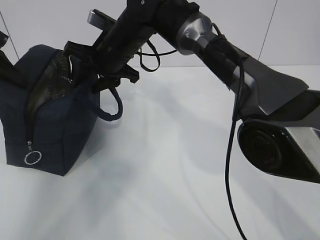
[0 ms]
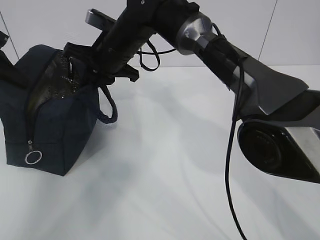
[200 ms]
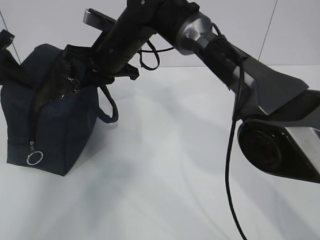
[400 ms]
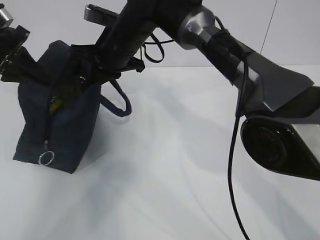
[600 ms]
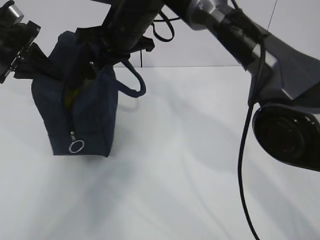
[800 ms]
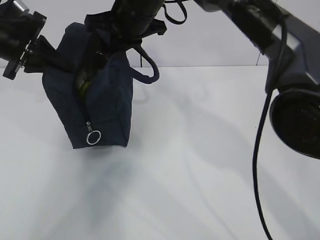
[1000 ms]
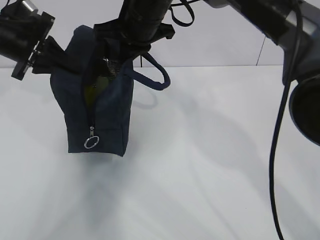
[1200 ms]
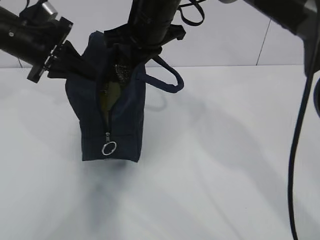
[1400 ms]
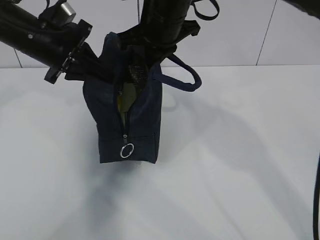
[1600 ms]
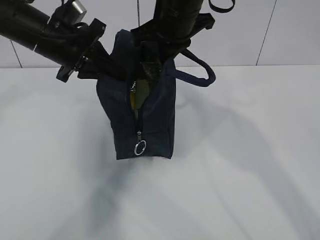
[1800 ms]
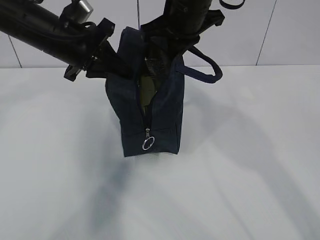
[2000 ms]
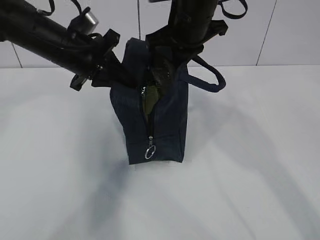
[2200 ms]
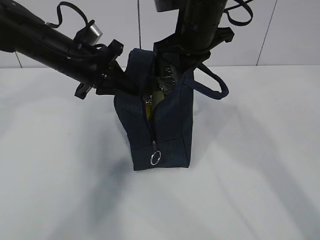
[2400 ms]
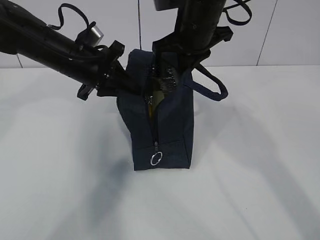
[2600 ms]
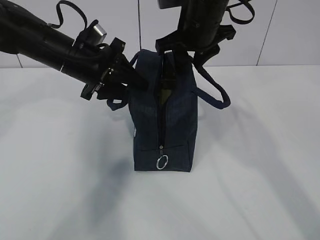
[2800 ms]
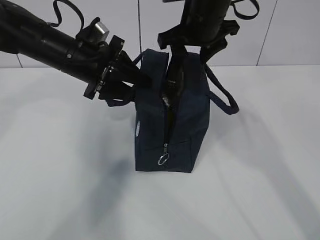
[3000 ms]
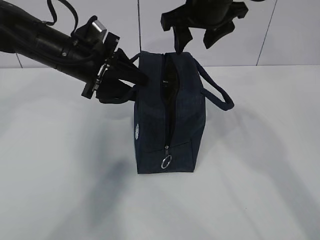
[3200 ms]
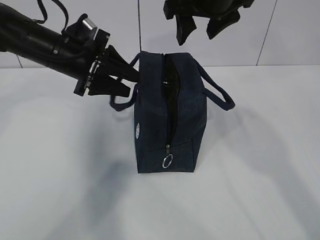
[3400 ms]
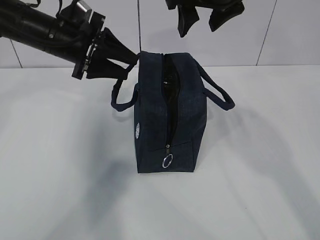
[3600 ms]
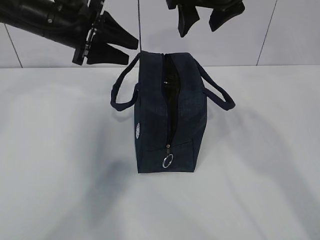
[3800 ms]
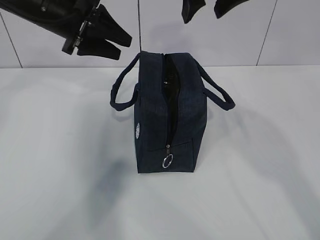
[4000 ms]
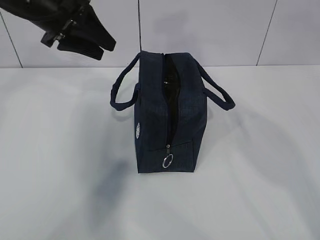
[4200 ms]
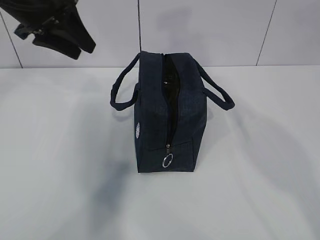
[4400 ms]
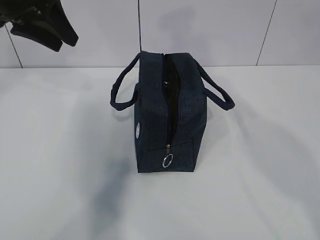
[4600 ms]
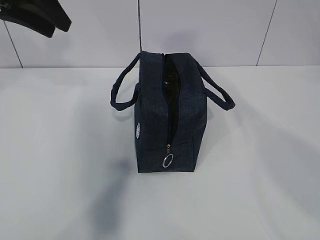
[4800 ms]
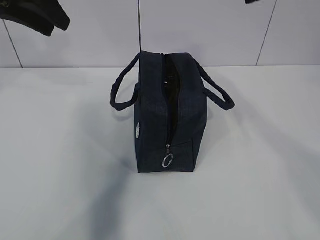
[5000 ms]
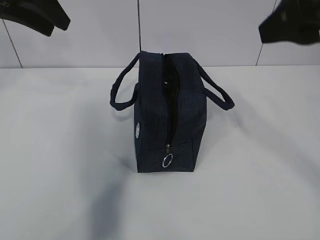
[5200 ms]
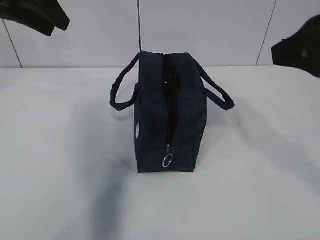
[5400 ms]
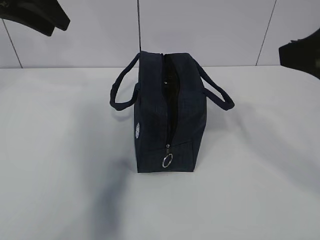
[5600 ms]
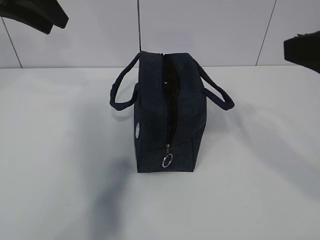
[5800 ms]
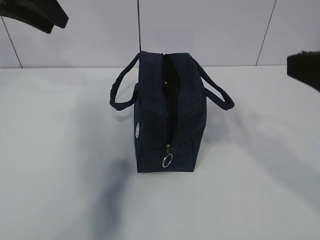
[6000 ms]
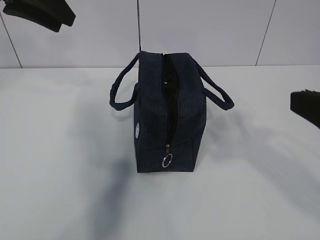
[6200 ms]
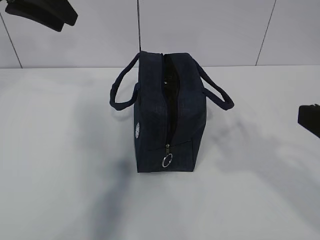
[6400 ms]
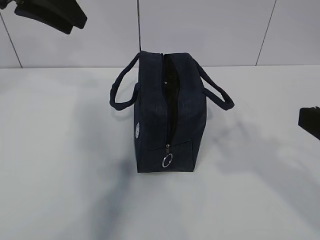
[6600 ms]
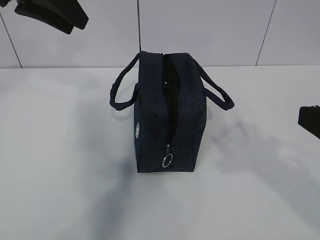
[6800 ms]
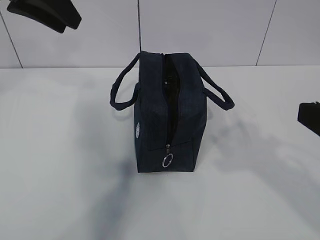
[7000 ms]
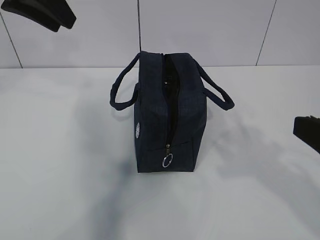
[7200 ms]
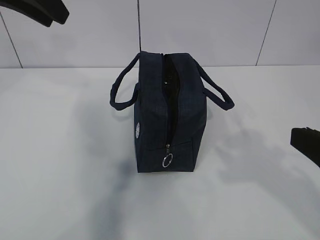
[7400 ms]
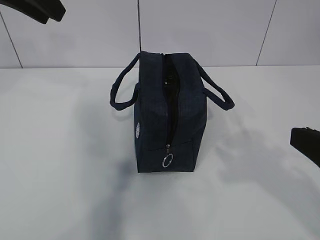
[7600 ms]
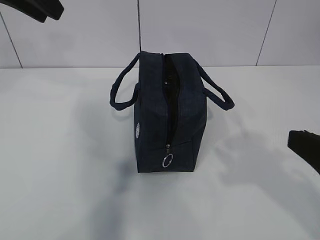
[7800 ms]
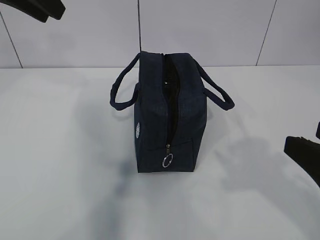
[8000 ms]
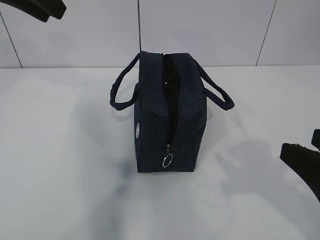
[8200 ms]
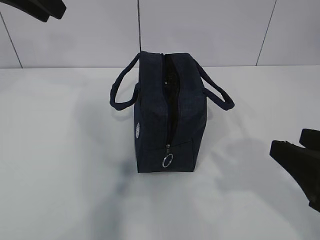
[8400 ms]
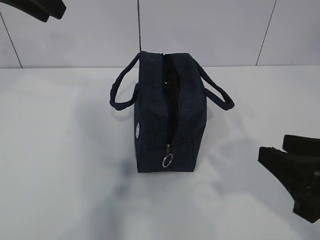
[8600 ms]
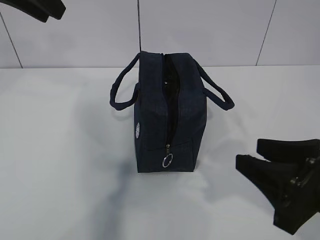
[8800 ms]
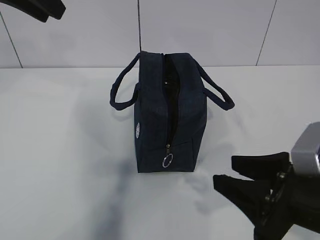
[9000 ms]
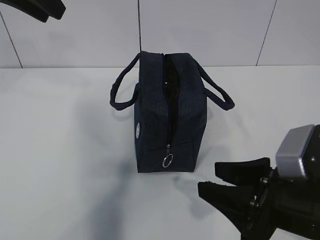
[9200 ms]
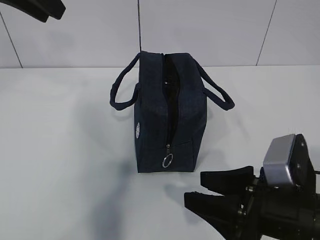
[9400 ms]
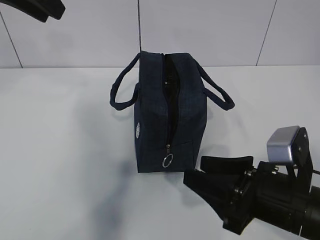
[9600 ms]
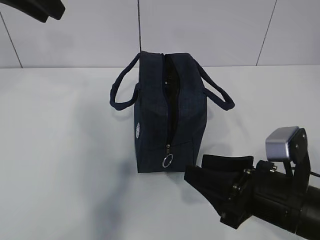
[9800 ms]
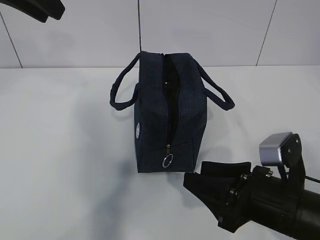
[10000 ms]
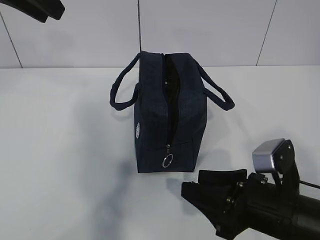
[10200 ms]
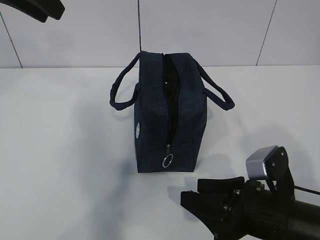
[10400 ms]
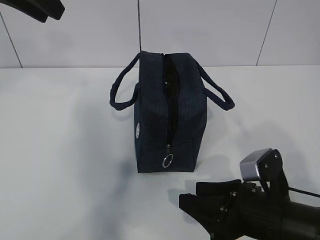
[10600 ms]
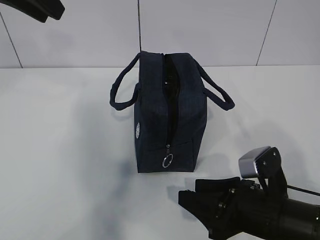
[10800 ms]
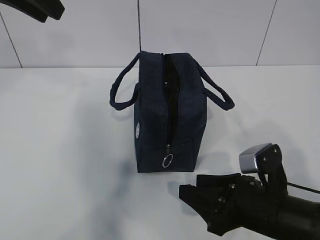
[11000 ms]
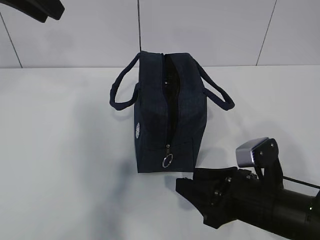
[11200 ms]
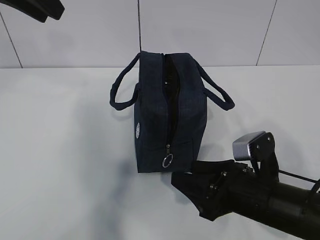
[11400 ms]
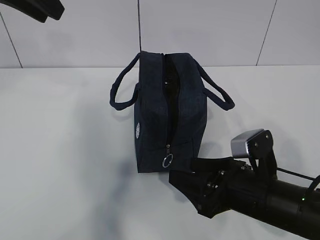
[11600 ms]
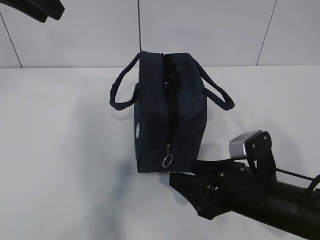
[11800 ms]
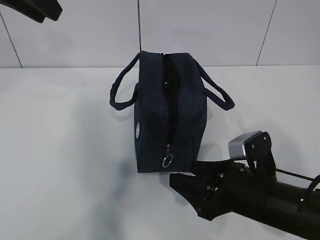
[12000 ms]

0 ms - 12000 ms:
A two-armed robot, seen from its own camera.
0 ms - 1600 ms: The left gripper moves to the right, roughly 15 cm, while the right gripper is displaced to the right and upward by roughly 10 cm, and closes its fingers.
1600 ms - 3000 ms: Both grippers move to the right, roughly 5 cm. The left gripper opens, while the right gripper opens up.
3000 ms - 4400 ms: The right gripper goes about 15 cm upward and backward. Meanwhile the left gripper heads upward and to the left, covering about 10 cm.
4400 ms - 6000 ms: The left gripper goes some 5 cm upward. The right gripper moves backward, downward and to the right, approximately 25 cm.
6000 ms - 7600 ms: The right gripper goes some 5 cm downward.
7600 ms - 9000 ms: The right gripper moves downward, approximately 10 cm.
9000 ms - 10400 ms: The right gripper shifts some 10 cm downward.
10400 ms - 12000 ms: There are only small adjustments of the grippers.

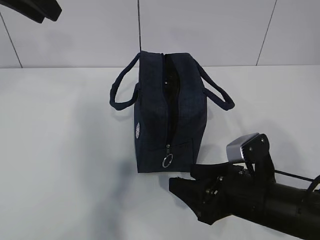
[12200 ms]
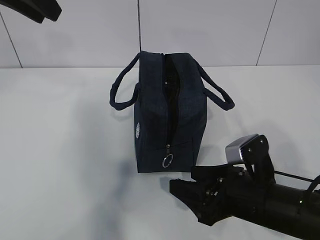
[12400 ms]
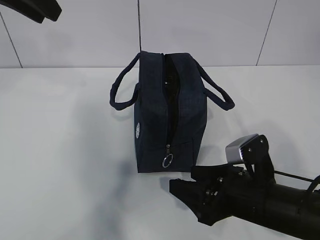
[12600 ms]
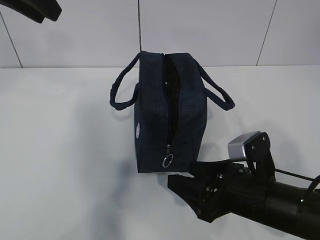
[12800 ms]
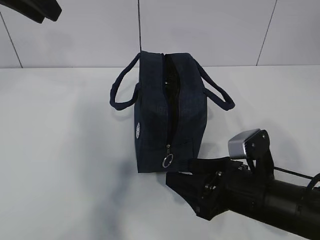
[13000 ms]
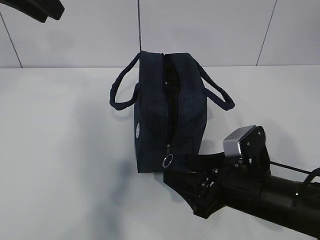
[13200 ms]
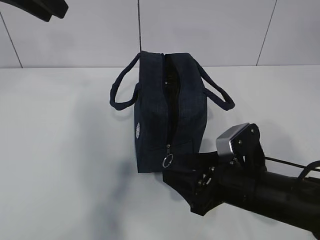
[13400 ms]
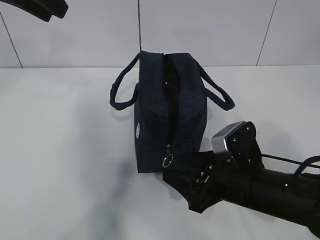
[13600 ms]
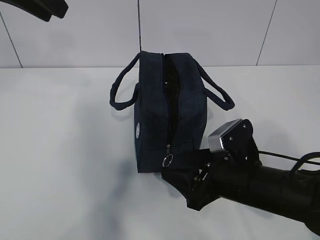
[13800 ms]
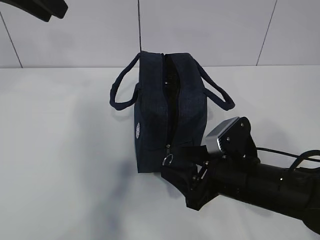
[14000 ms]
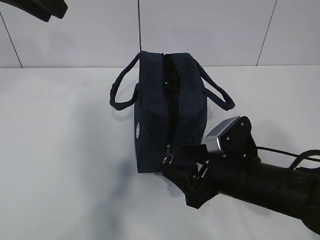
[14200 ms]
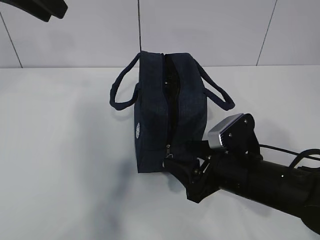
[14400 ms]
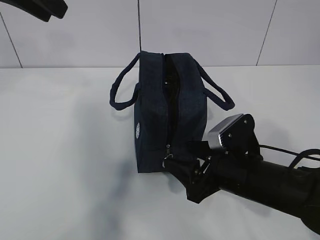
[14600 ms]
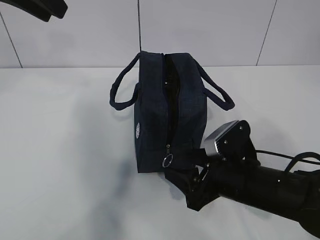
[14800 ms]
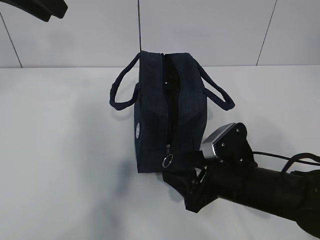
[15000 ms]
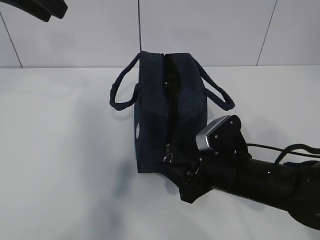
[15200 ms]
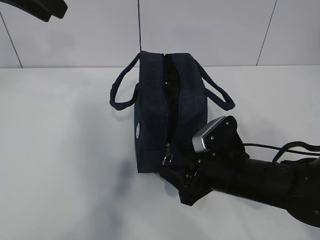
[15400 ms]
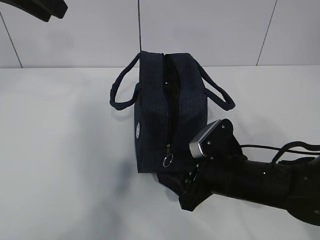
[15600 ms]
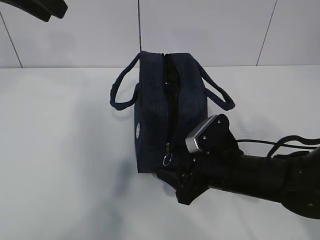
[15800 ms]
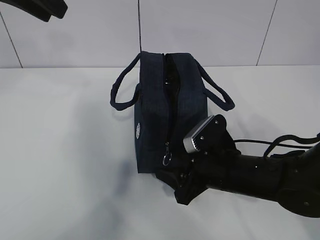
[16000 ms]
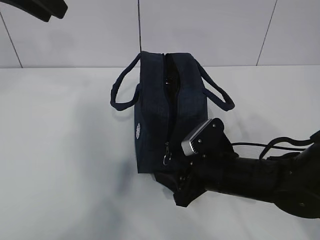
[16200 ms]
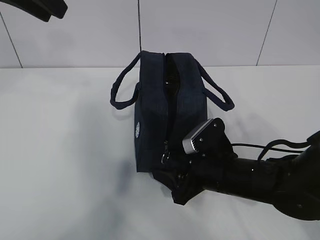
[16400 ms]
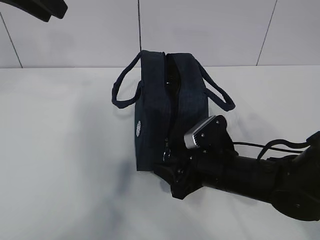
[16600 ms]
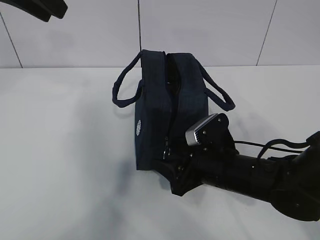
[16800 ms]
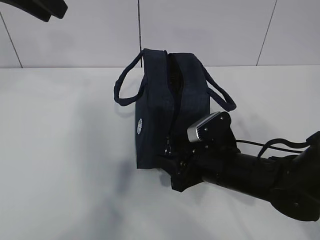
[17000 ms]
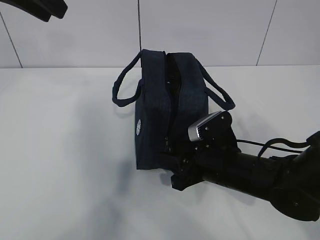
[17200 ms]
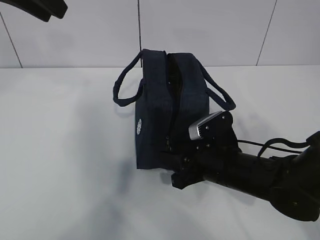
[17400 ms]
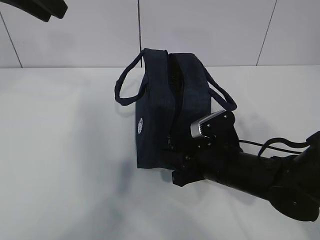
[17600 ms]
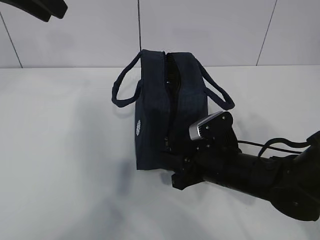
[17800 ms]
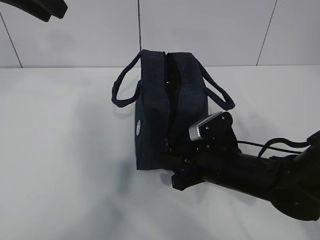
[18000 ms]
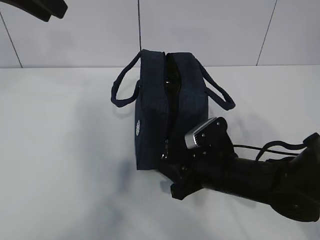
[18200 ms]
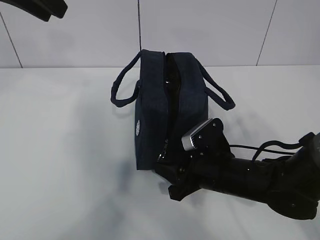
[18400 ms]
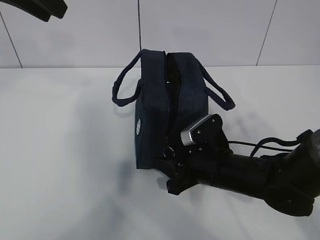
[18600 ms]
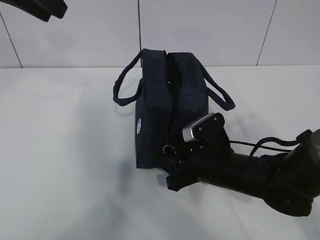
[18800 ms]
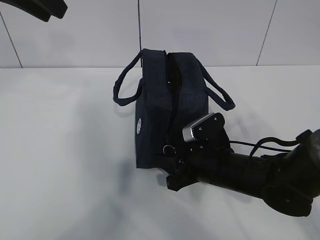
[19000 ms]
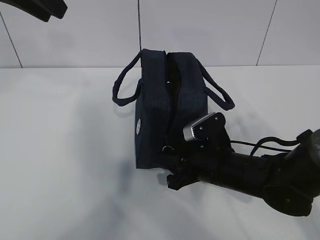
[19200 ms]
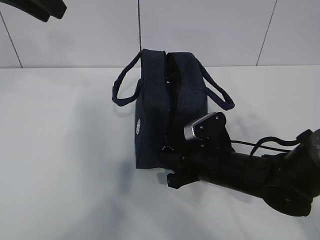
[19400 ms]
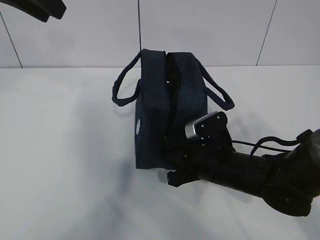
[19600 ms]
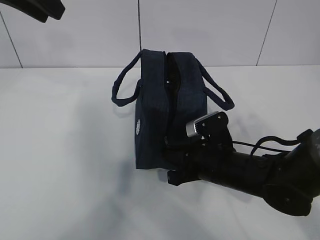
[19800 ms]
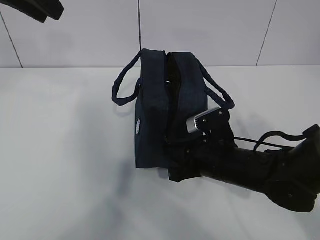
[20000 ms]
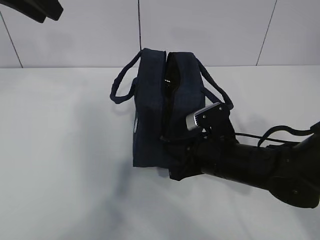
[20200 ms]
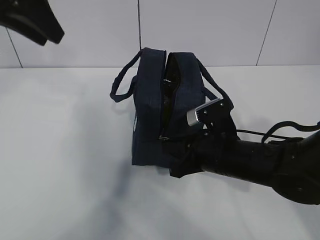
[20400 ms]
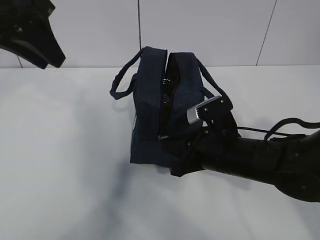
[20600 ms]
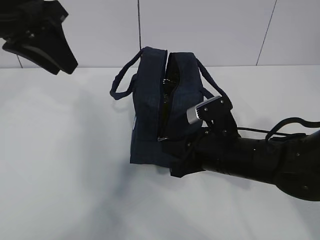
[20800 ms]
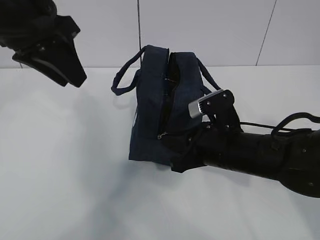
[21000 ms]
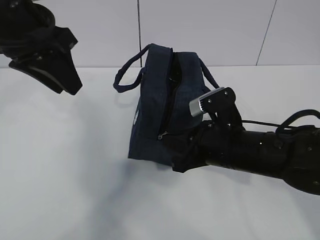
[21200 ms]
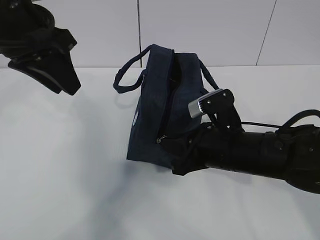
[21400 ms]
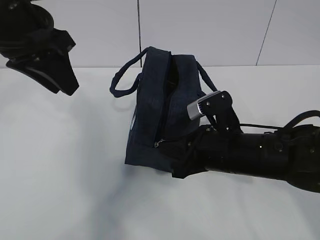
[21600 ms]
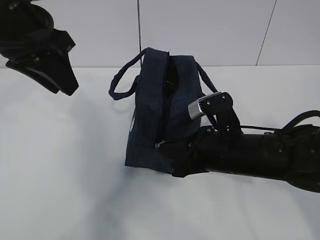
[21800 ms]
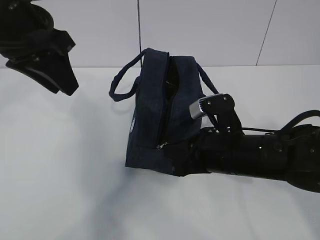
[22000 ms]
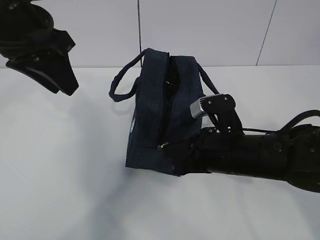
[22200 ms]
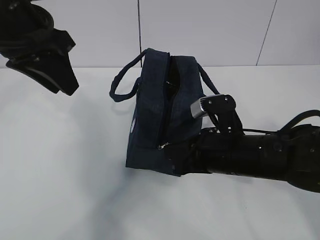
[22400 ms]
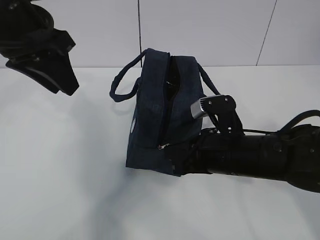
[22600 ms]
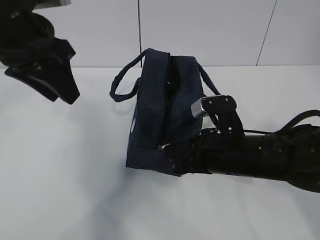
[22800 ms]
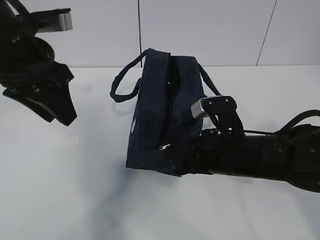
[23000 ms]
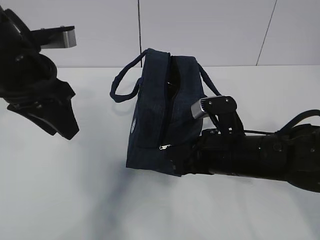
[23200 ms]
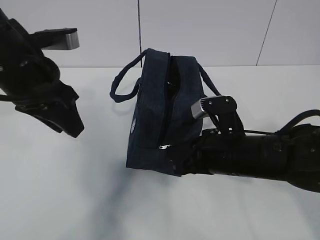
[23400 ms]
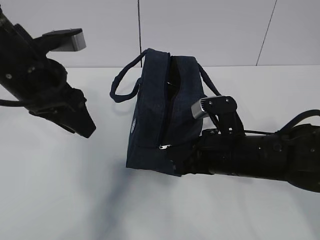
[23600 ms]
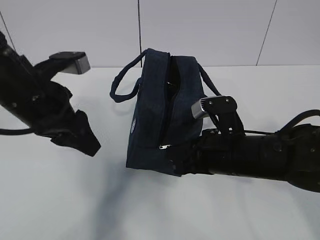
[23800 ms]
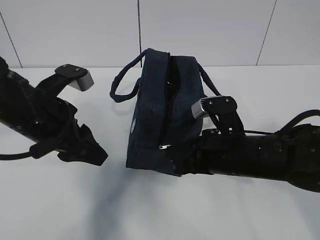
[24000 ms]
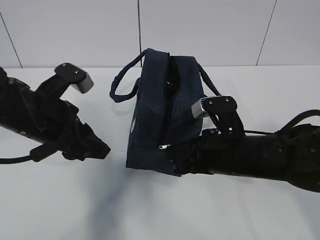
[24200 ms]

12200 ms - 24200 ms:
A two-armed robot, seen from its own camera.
Step, 17400 ms - 24200 ms: Pull the zipper with your right hand.
12200 ms - 15200 ms: The grippers move only a little.
15200 ms - 16600 ms: The grippers move only a little.
16600 ms - 18200 ms: The right gripper closes its fingers.
18200 ms - 19800 ms: The right gripper closes its fingers.
19800 ms - 21200 ms: The right gripper travels upward by about 5 cm, while the left gripper travels downward by about 5 cm.
21200 ms - 22600 ms: There are only small adjustments of the grippers.
22600 ms - 24200 ms: The left gripper moves downward, some 15 cm.
